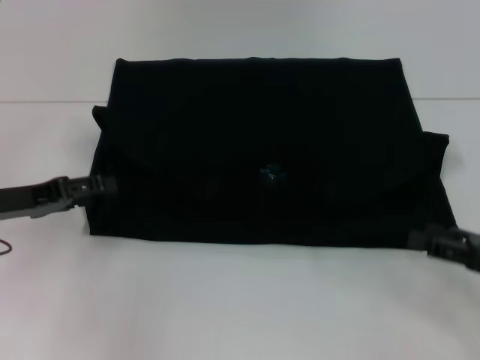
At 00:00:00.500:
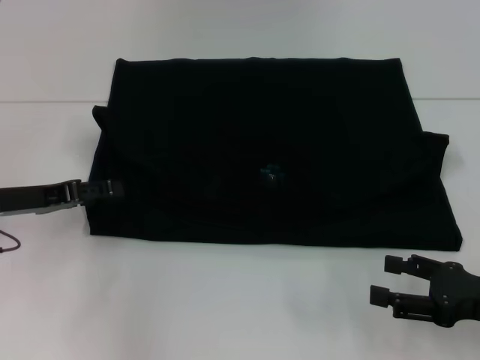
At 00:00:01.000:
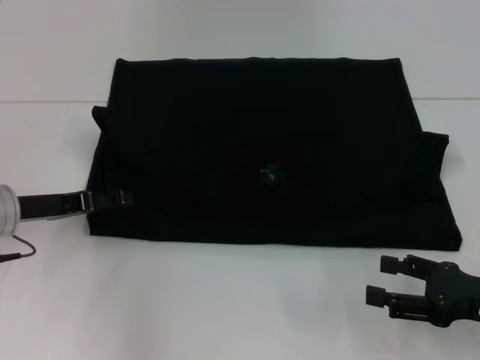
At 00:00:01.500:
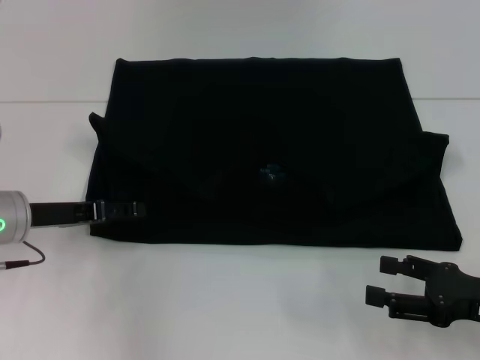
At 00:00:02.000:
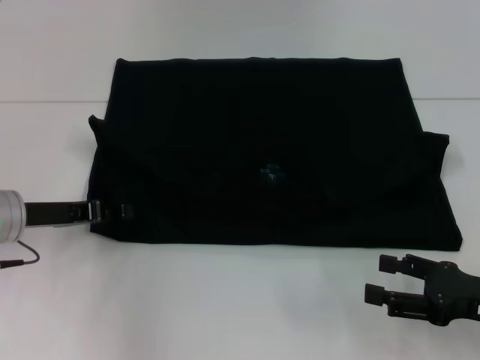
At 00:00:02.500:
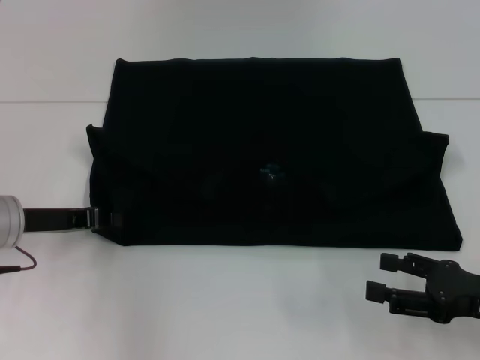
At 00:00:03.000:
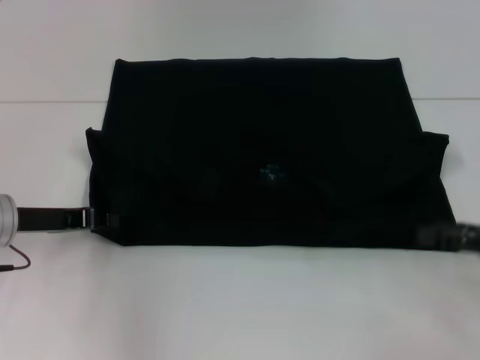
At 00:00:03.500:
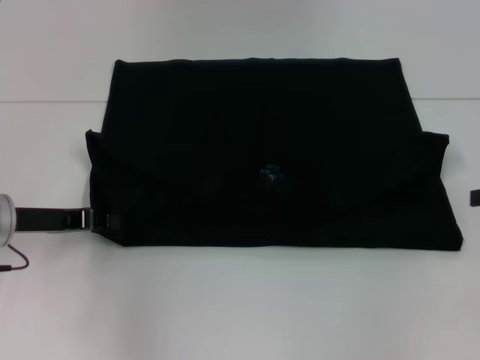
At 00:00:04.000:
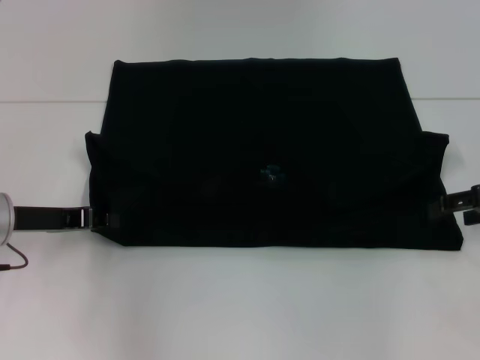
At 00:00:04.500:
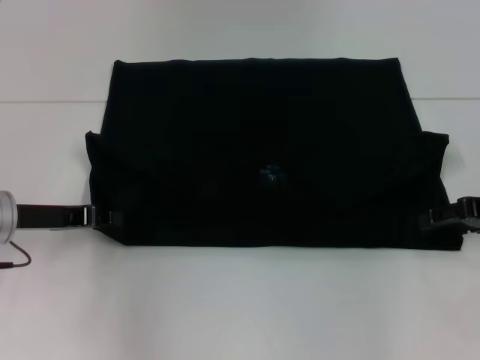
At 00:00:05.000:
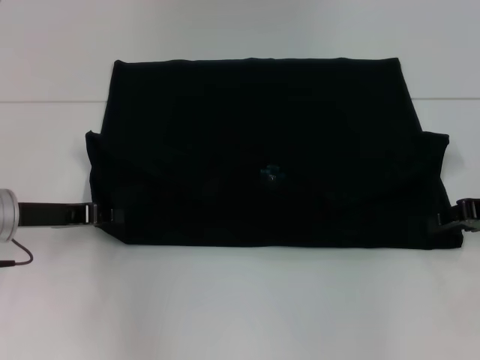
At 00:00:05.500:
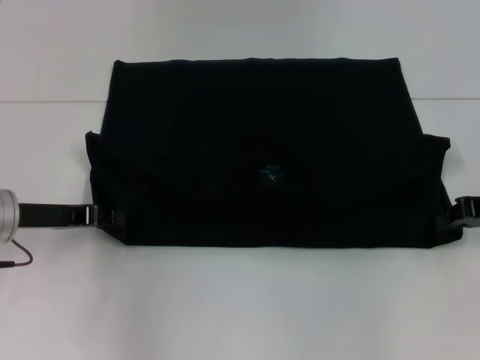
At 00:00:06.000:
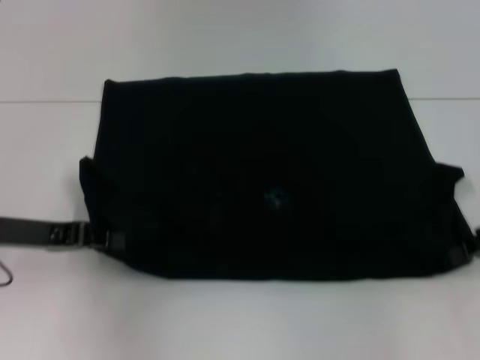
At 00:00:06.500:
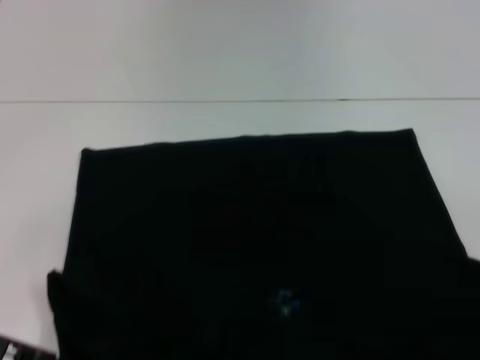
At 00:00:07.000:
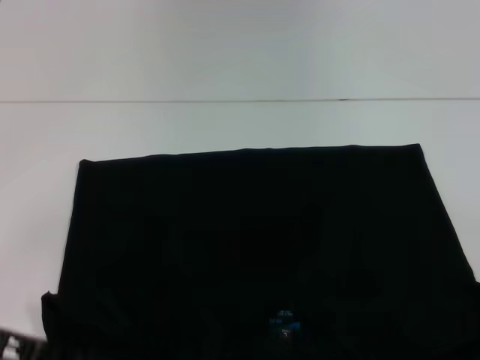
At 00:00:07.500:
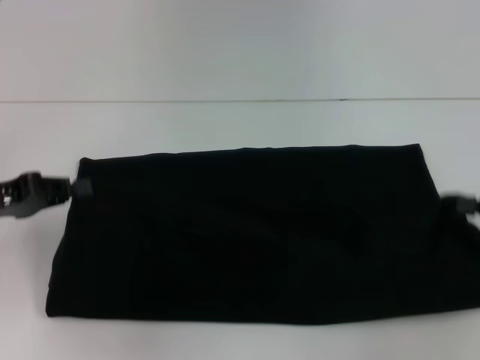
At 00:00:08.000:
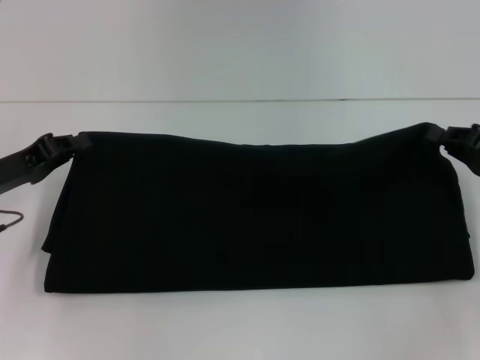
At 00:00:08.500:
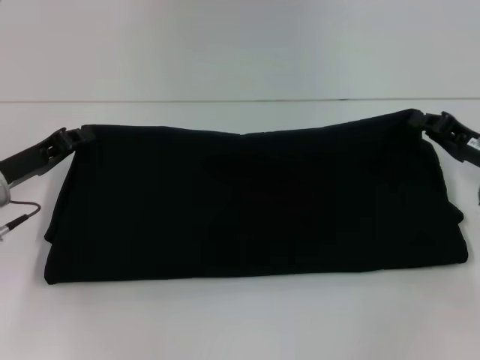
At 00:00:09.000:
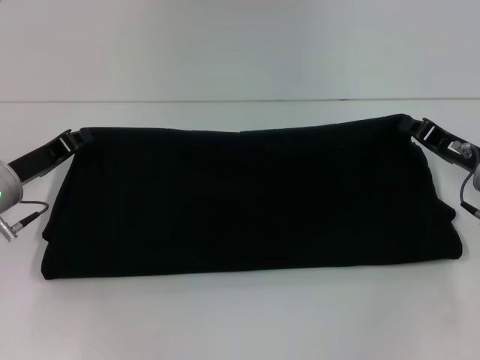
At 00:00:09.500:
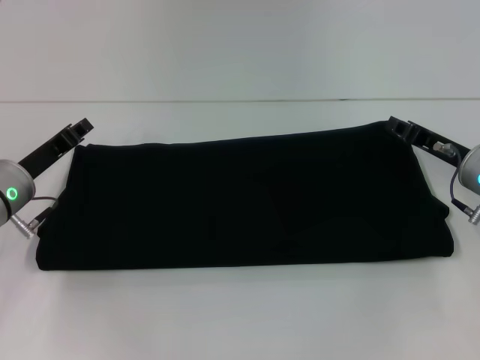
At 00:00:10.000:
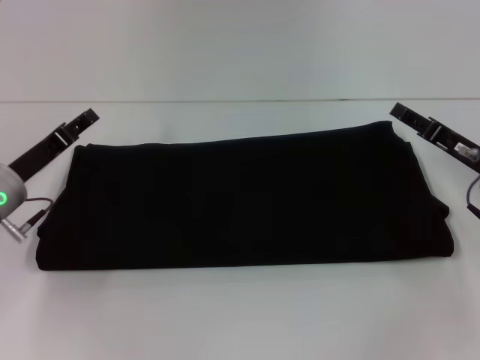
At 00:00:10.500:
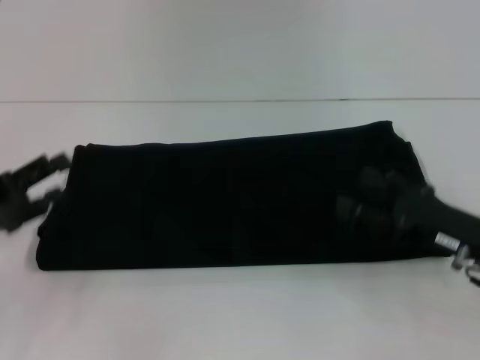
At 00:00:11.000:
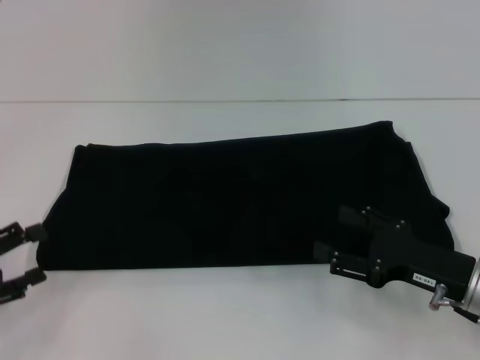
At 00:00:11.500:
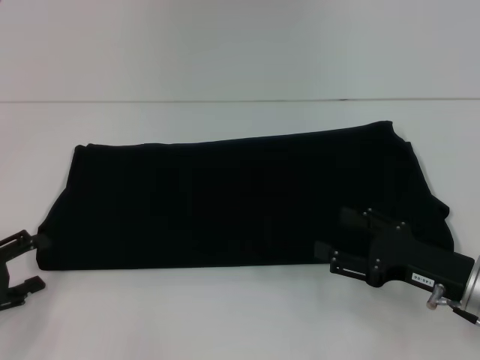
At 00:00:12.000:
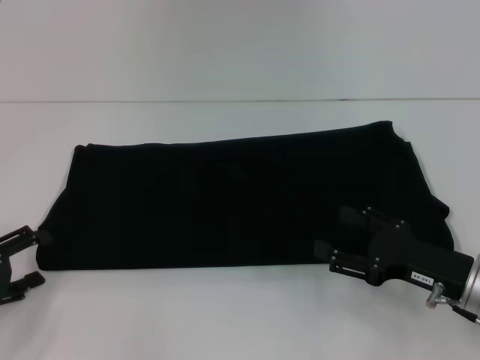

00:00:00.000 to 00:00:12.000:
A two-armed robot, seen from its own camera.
Step, 00:00:00.000 to 00:00:06.500: Pull the clothes with your left hand.
Step, 00:00:00.000 to 00:00:06.500: Pull the clothes with your right hand.
Step, 00:00:07.000 to 00:00:10.500: Fold the clothes with your right hand.
00:00:00.000 to 00:00:02.000: There are only small adjustments of the grippers.
00:00:02.000 to 00:00:04.000: The right gripper shifts approximately 15 cm forward and upward. The left gripper closes its fingers.
00:00:04.000 to 00:00:06.000: The right gripper closes up.
00:00:06.000 to 00:00:08.000: The left gripper goes backward and returns, about 5 cm each way. Meanwhile the right gripper travels backward and back again, about 10 cm each way.
00:00:08.000 to 00:00:10.000: The right gripper shifts by some 5 cm, and opens up. The left gripper moves about 5 cm, and opens its fingers.
00:00:10.000 to 00:00:12.000: The right gripper travels backward by some 10 cm, and opens up. Meanwhile the left gripper moves backward and to the left, roughly 15 cm, and opens.

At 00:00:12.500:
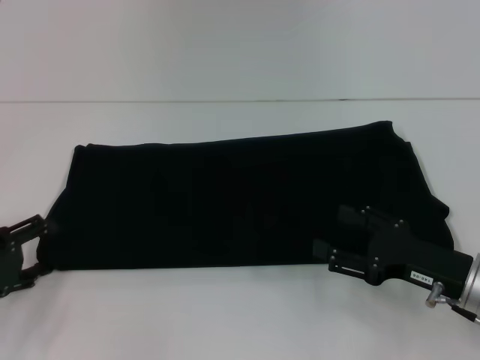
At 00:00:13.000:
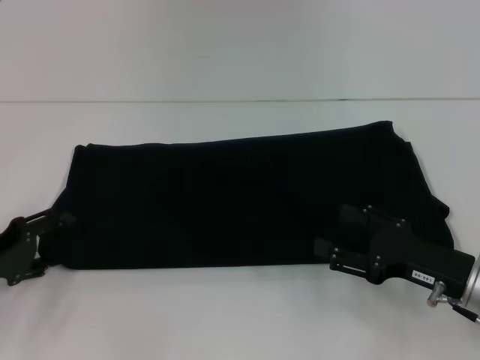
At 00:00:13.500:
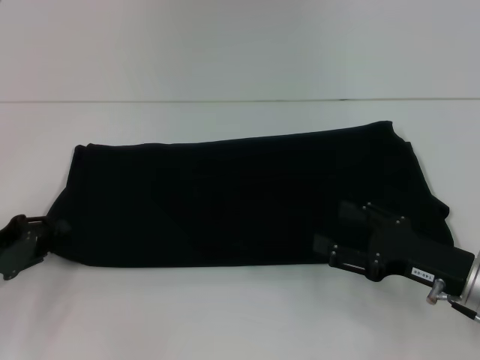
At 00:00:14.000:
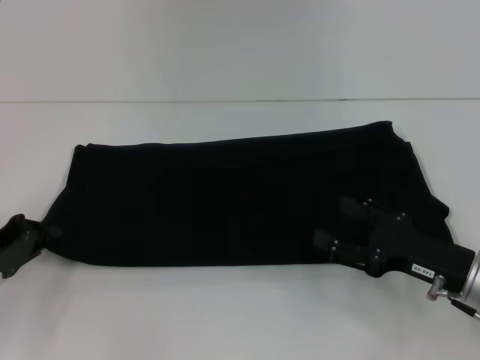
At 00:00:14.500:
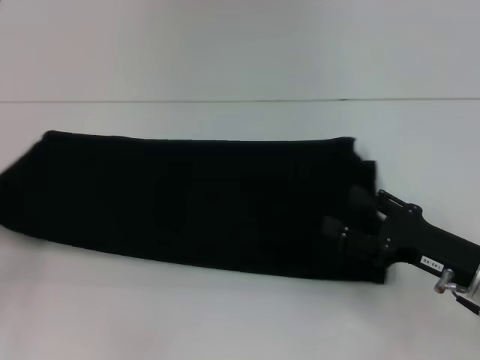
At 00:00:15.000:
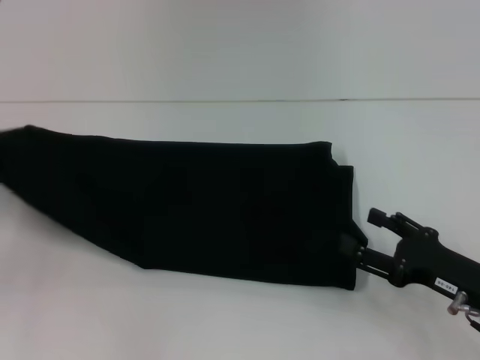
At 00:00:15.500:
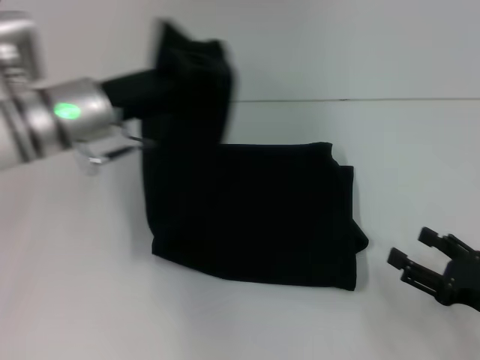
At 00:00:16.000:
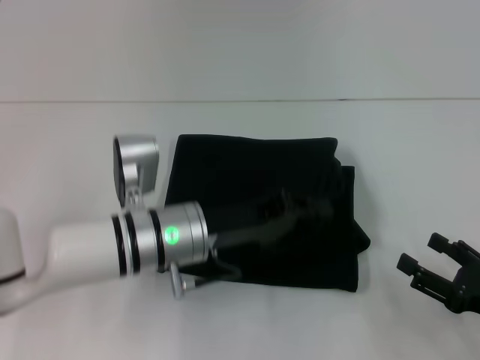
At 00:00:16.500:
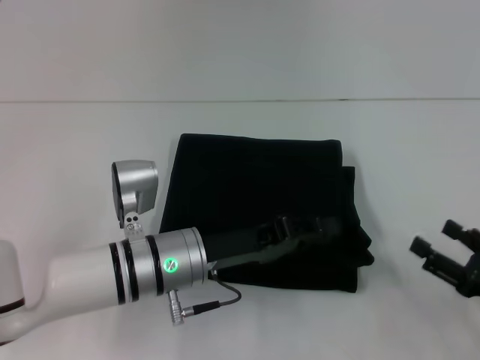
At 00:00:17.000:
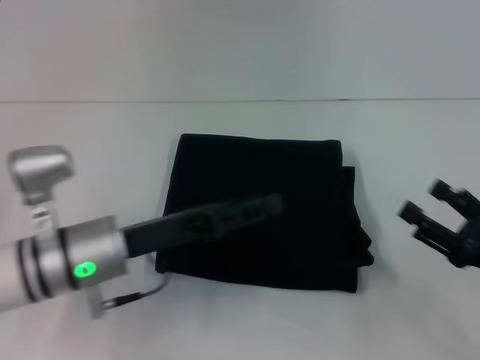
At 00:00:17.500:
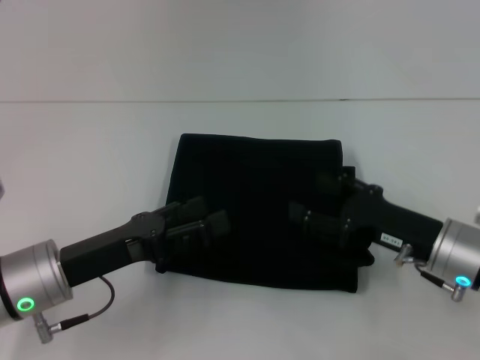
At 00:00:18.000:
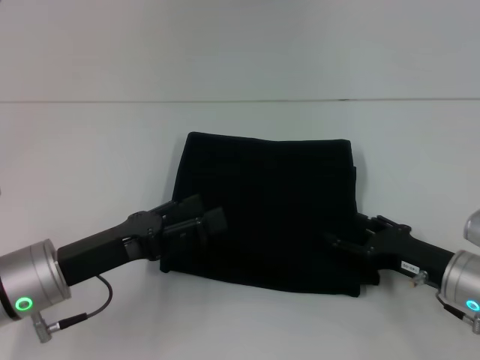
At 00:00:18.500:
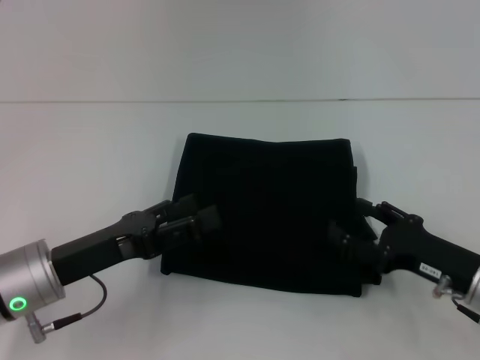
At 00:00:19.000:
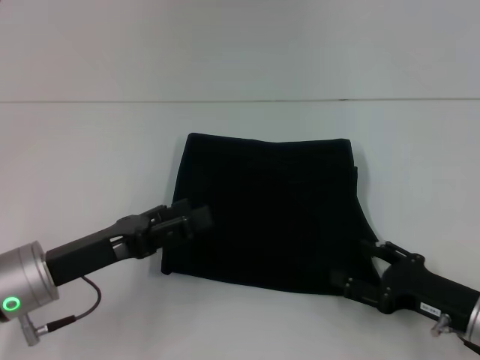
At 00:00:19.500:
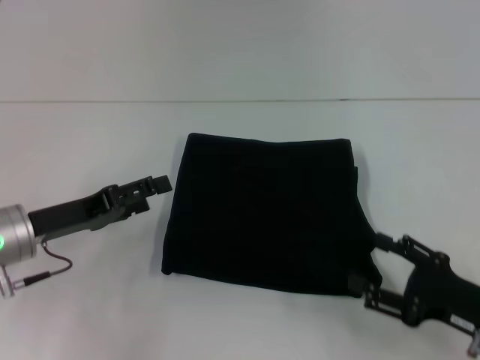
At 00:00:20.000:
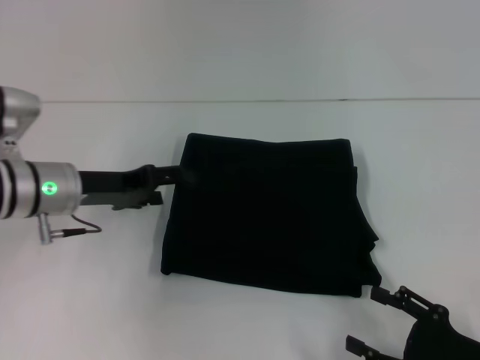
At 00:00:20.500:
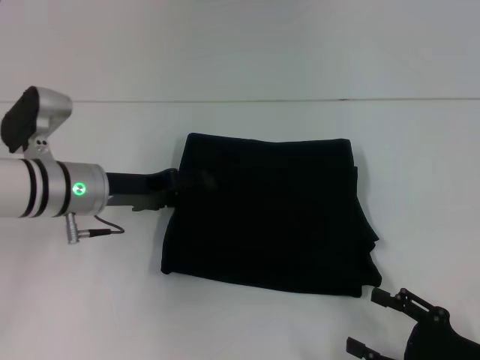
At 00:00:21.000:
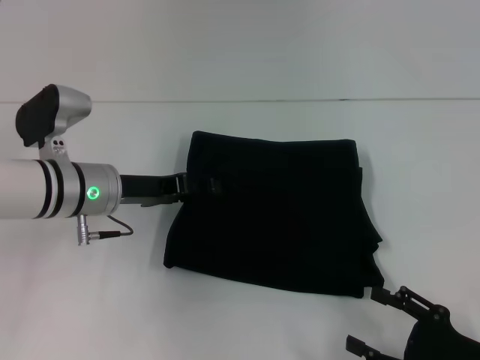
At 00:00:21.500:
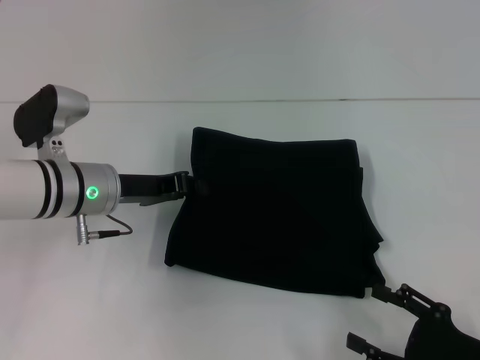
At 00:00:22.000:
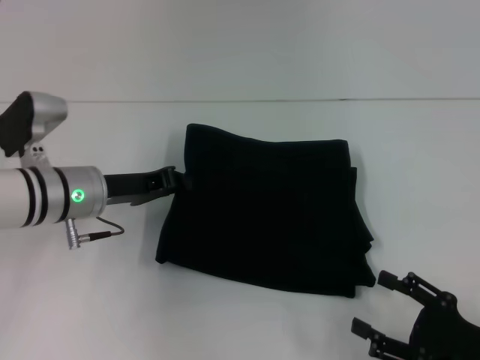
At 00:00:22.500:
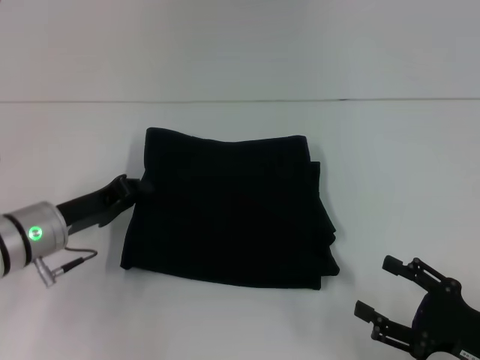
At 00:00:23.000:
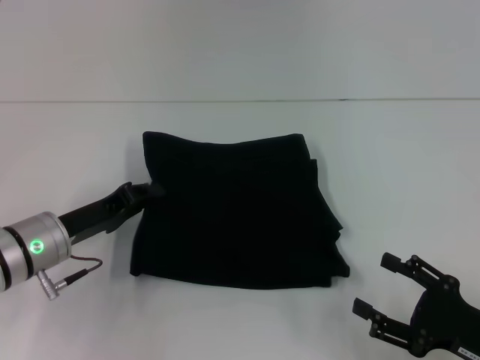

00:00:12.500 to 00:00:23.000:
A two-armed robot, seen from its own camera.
Step, 00:00:12.500 to 00:00:16.500: Fold the clothes with your left hand.
00:00:12.500 to 00:00:14.500: The left gripper moves approximately 5 cm, and closes up.
00:00:14.500 to 00:00:16.500: The left gripper heads to the right, covering about 30 cm. Meanwhile the right gripper shifts approximately 10 cm to the right and backward.
00:00:16.500 to 00:00:19.000: The left gripper heads to the left, covering approximately 15 cm, and opens its fingers, while the right gripper heads to the left, covering roughly 5 cm.
00:00:19.000 to 00:00:21.000: The left gripper moves forward, about 10 cm; the right gripper shifts roughly 5 cm backward.
00:00:21.000 to 00:00:23.000: The left gripper moves backward, some 5 cm, and closes up.

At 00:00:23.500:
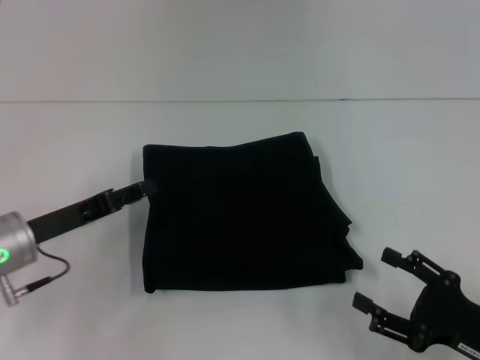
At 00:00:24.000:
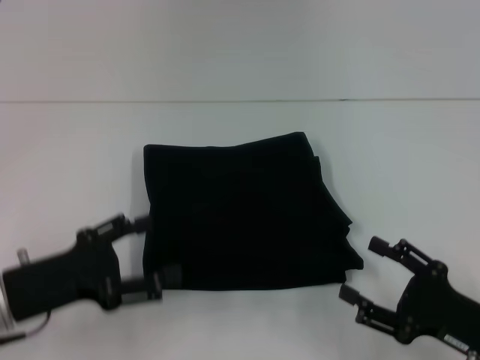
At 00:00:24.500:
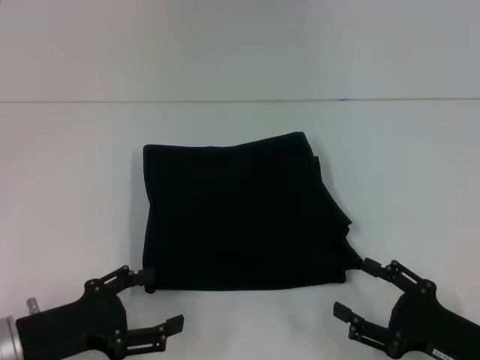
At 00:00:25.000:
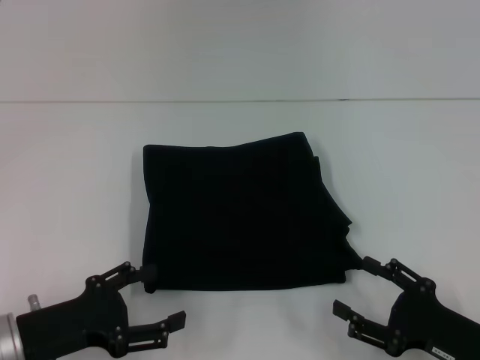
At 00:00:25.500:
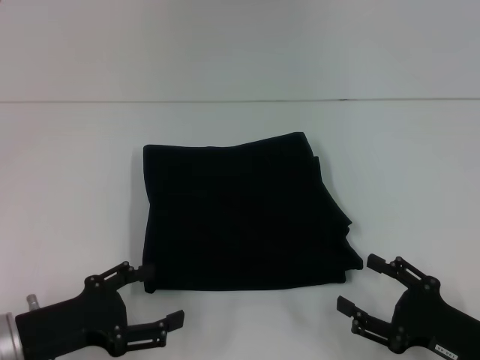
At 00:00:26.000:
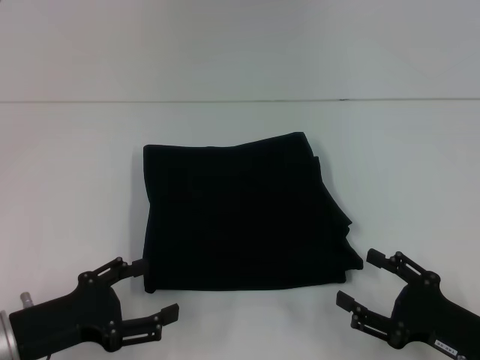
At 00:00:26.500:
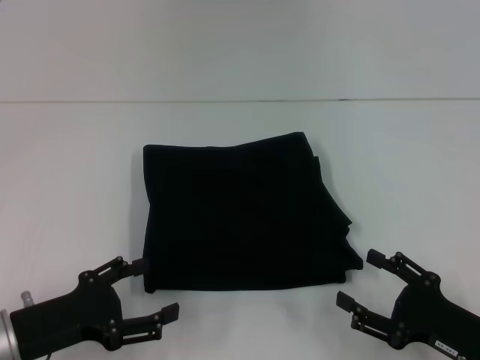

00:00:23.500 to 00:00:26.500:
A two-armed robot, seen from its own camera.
00:00:23.500 to 00:00:25.000: The left gripper travels backward by about 10 cm, and opens.
00:00:25.000 to 00:00:26.500: The two grippers keep their place.
